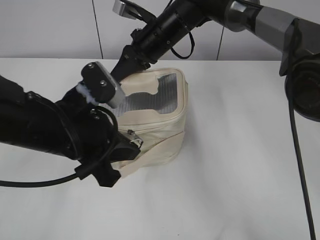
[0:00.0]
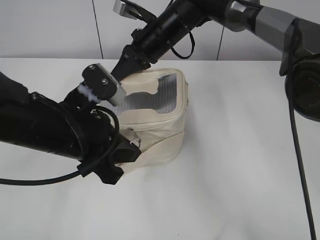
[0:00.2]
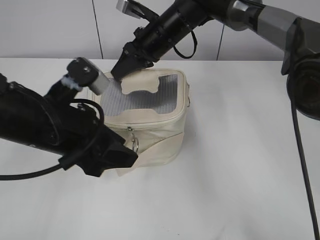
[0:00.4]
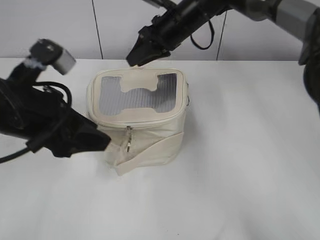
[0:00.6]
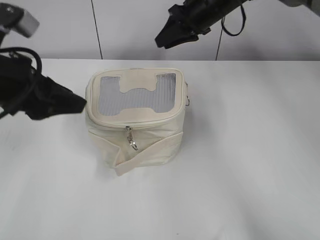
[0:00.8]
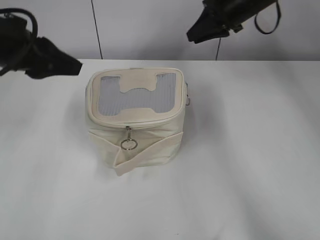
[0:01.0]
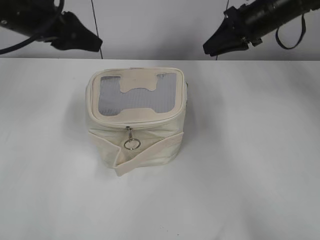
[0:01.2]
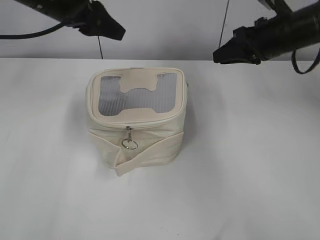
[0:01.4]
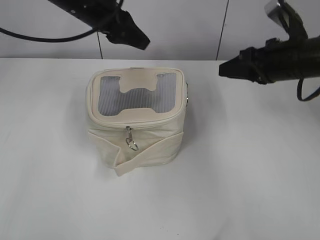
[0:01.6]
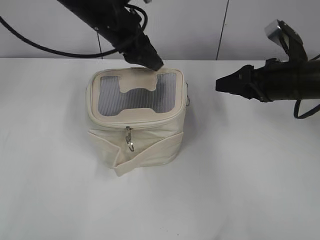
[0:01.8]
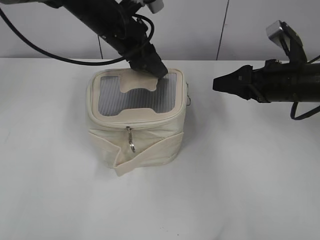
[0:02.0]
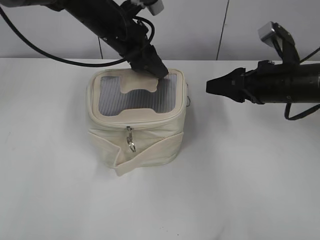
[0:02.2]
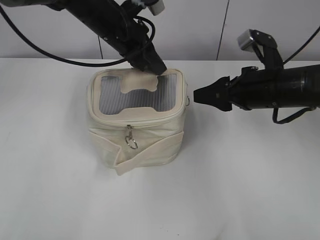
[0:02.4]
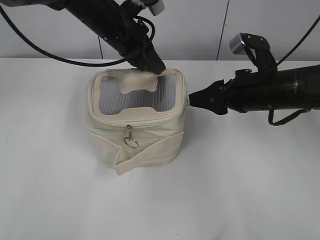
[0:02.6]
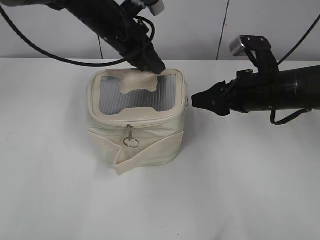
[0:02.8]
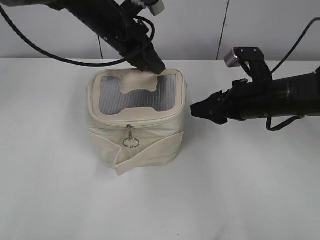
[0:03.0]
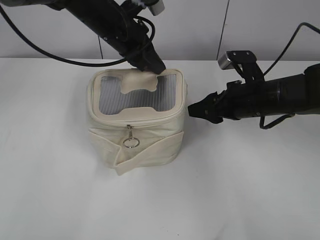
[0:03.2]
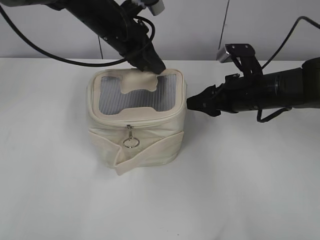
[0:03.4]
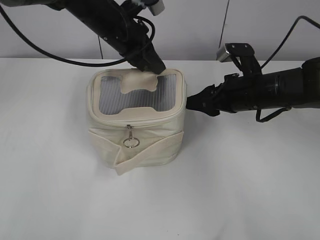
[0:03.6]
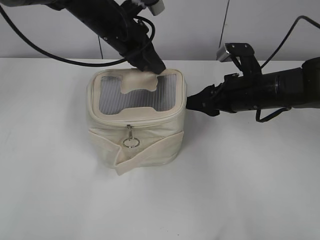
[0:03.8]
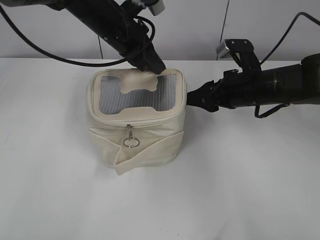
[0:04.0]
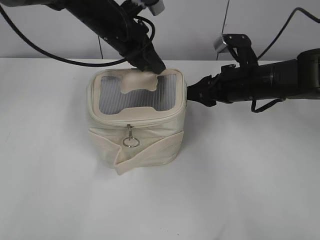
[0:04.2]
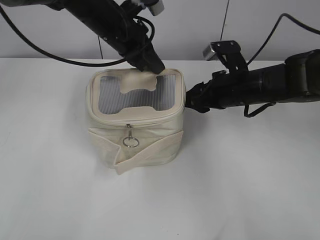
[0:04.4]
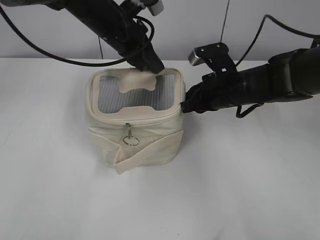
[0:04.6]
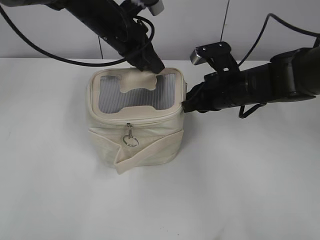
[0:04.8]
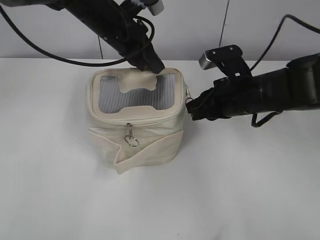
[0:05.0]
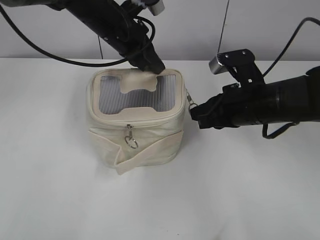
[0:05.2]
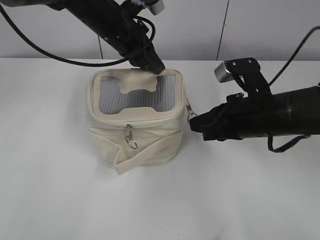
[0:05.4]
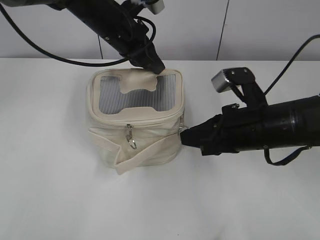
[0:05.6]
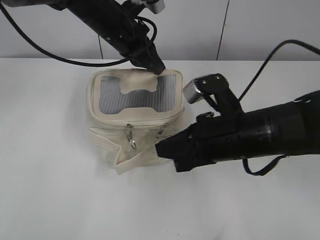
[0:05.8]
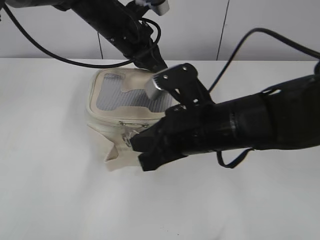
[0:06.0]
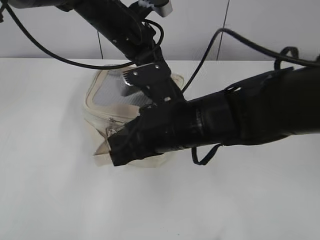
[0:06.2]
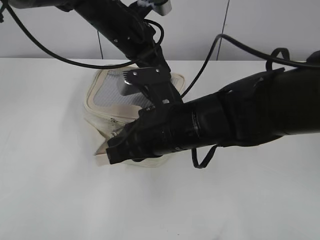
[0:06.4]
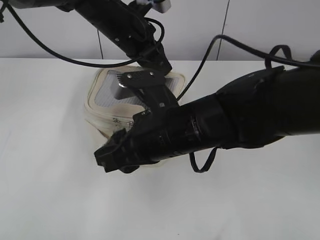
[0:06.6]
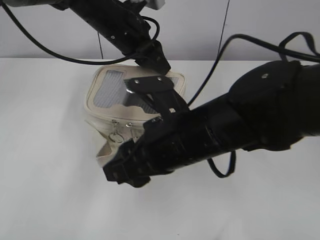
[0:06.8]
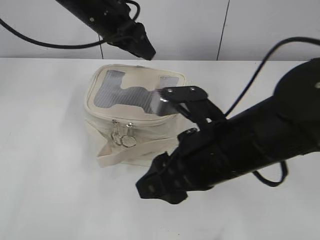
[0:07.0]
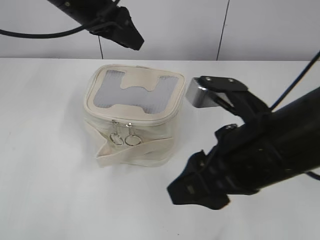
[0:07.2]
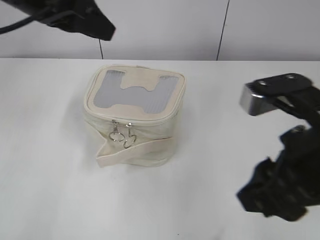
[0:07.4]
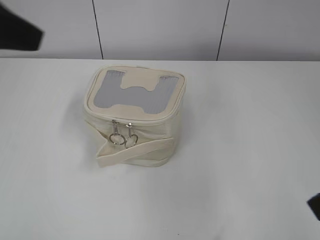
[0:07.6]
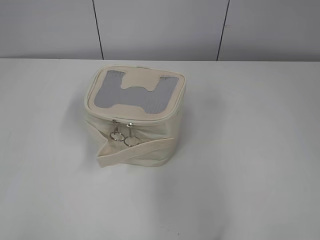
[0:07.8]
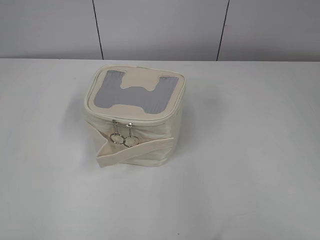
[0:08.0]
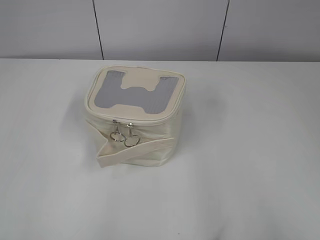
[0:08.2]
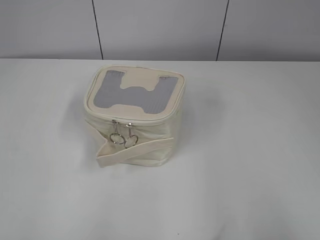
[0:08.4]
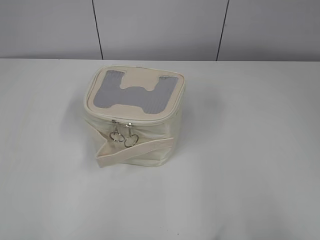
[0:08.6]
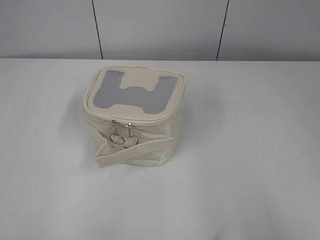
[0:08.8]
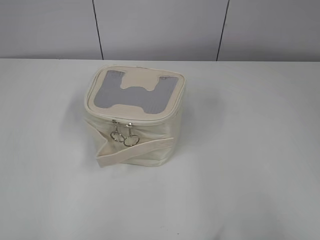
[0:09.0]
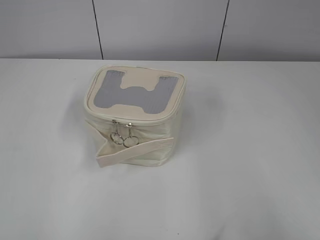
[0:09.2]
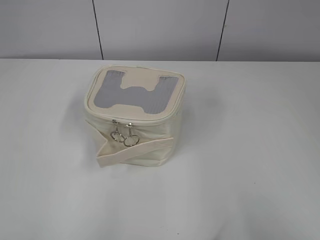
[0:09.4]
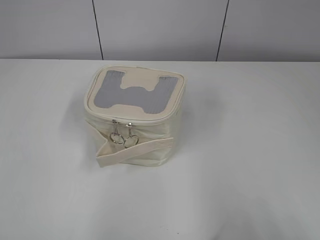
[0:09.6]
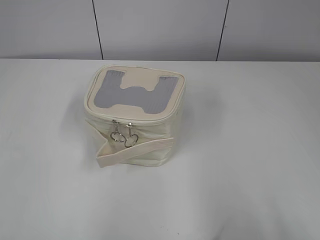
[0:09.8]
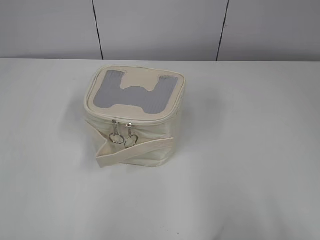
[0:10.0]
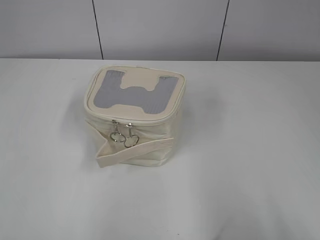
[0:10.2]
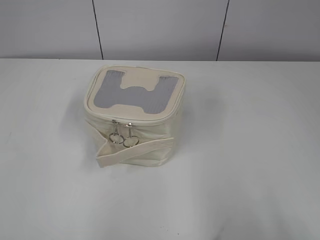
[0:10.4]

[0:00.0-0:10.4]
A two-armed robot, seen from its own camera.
Step, 0:00.6 to 0:06.4: Zip up the bag with your right hand.
Step, 0:06.6 to 0:06.8: Hold the bag with your left hand.
0:00.0 to 0:01.4: The right gripper travels to the right by roughly 20 cm, and opens. Meanwhile the left gripper moves forward and upward, approximately 20 cm, and opens up.
0:01.4 to 0:03.0: The left gripper shifts roughly 10 cm to the right and downward, and closes its fingers. Meanwhile the right gripper moves backward and downward, about 10 cm, and opens.
0:03.0 to 0:04.4: There are only small adjustments of the grippers.
0:04.4 to 0:06.0: The right gripper heads backward and to the left, covering about 15 cm, and closes up.
0:06.0 to 0:07.4: The left gripper travels backward, upward and to the left by roughly 20 cm, and opens up. The right gripper shifts some 15 cm upward, backward and to the right, and opens up.
0:07.4 to 0:09.0: The left gripper moves backward and to the left, about 35 cm; the right gripper travels to the right and backward by approximately 20 cm.

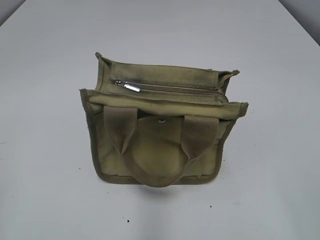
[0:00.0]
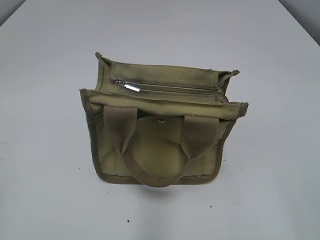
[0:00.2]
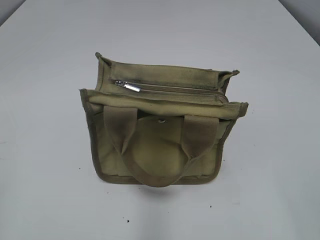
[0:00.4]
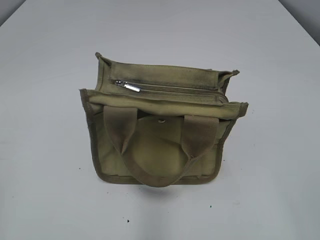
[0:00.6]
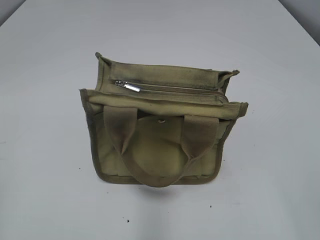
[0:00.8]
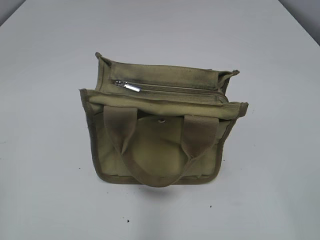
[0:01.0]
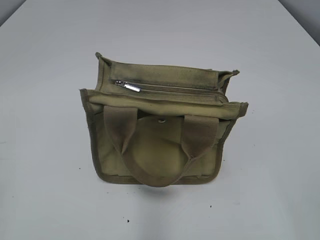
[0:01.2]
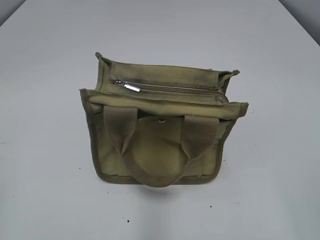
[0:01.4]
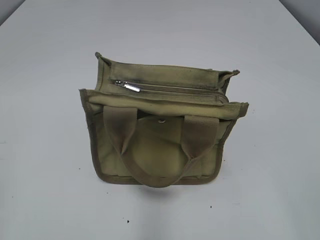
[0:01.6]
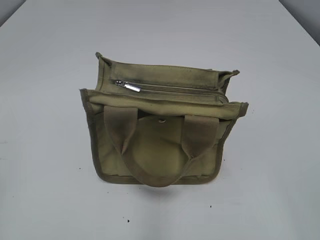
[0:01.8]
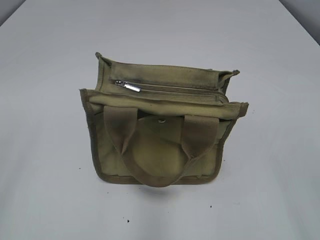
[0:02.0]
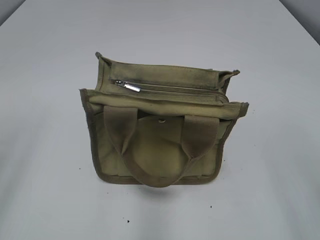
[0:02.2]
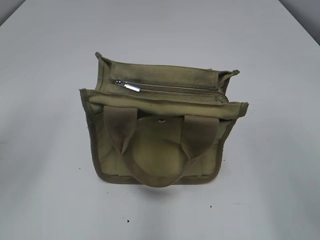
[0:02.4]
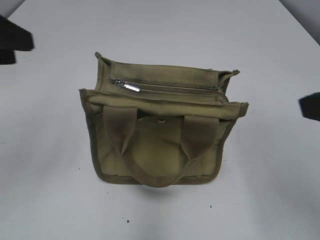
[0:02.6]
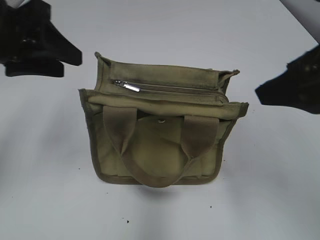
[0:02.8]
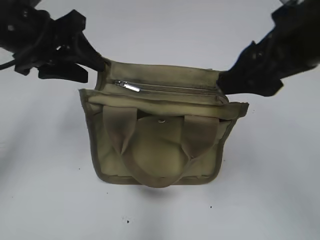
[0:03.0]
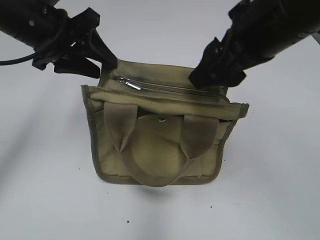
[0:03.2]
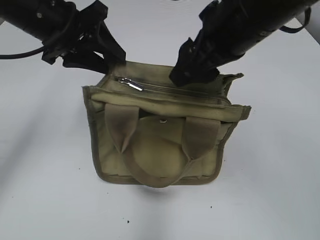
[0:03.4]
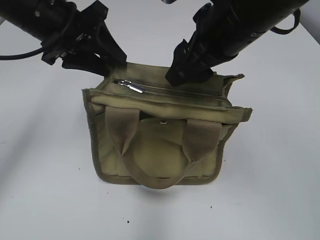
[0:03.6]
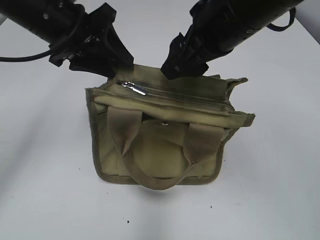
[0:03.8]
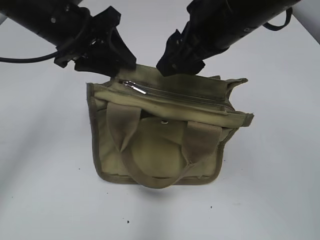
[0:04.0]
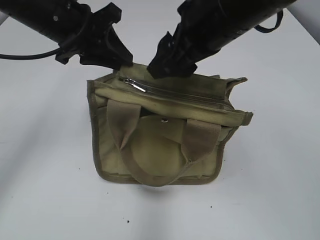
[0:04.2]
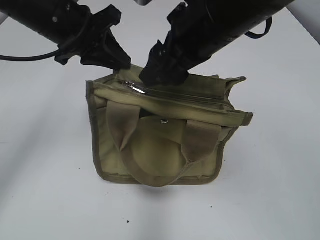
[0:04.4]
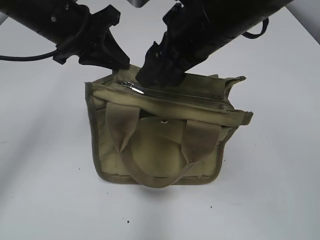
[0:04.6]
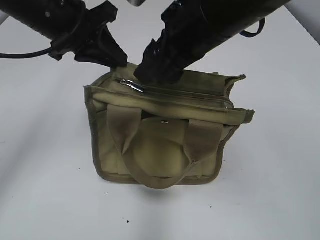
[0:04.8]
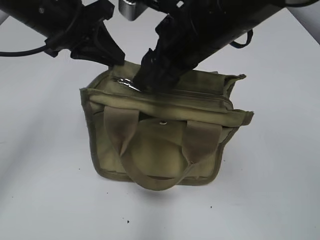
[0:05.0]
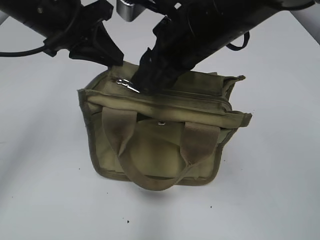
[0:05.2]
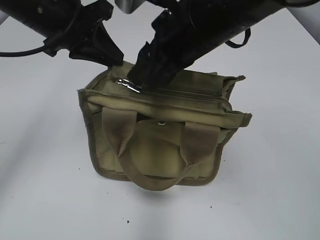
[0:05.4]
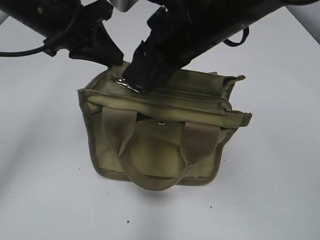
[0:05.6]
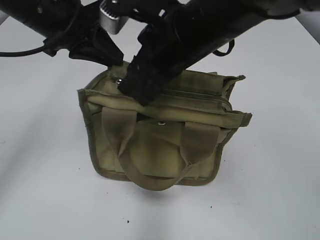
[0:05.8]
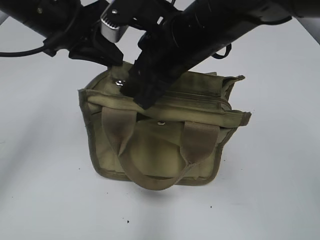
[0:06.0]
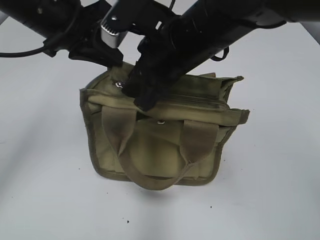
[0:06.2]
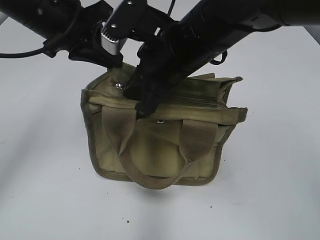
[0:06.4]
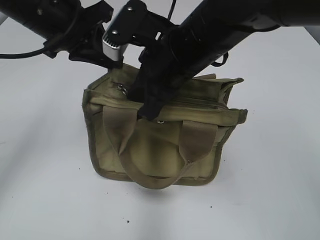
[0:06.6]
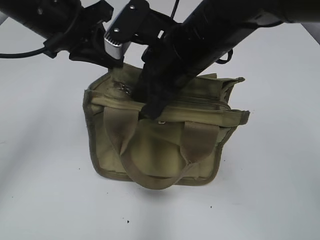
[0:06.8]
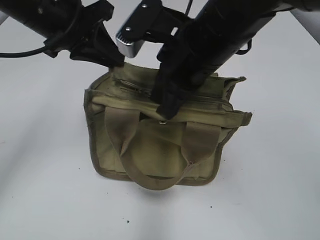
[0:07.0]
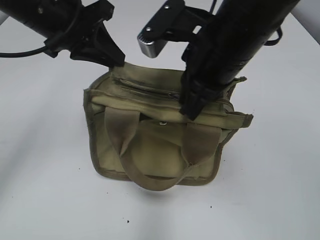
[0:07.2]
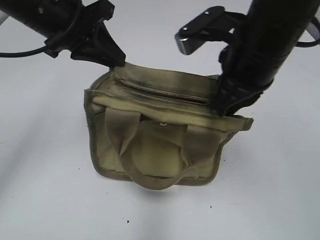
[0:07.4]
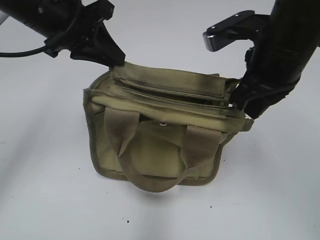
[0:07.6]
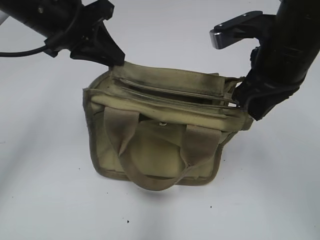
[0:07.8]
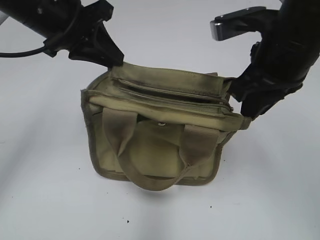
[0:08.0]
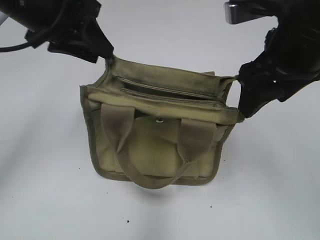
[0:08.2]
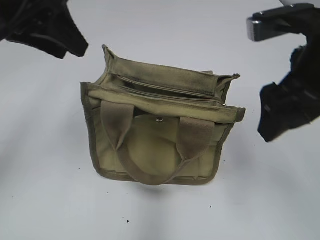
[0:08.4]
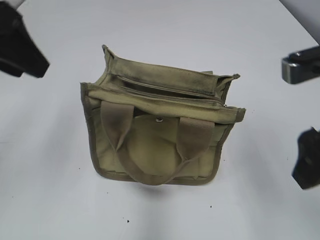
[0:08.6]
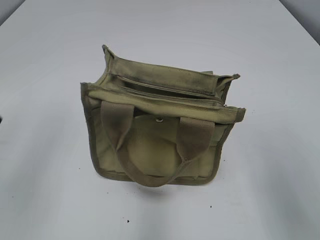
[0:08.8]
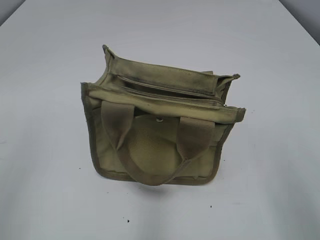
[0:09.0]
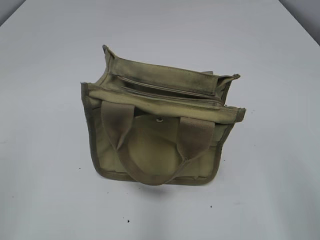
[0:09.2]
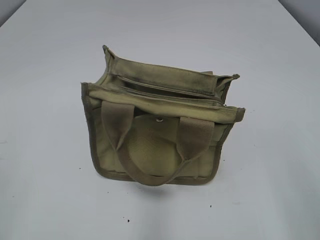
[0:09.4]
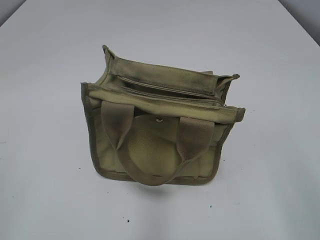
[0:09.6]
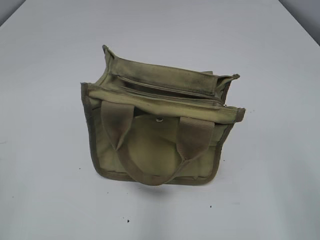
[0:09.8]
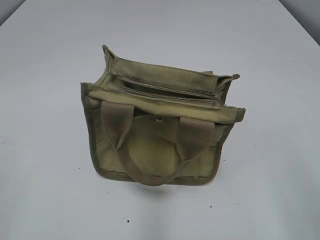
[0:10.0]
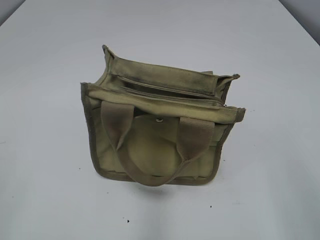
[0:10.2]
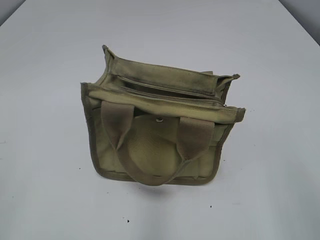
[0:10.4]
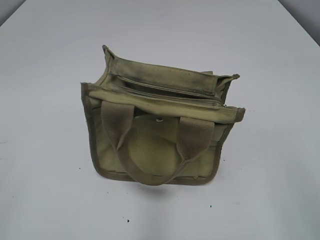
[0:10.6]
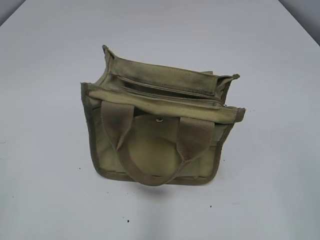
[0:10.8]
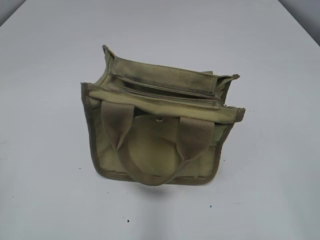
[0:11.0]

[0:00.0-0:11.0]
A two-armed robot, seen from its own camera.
Step, 0:00.0 to 0:07.8: Pull open the zipper with your right hand.
Step, 0:08.0 to 0:08.2: Hold the bag with your left hand.
0:01.6 to 0:03.2: The right gripper moves forward and to the left, about 30 cm; the left gripper is displaced forward and to the right by roughly 35 cm.
0:03.2 to 0:04.8: The right gripper goes approximately 5 cm to the left; the left gripper closes.
0:04.8 to 0:06.2: The right gripper closes up.
0:06.2 to 0:07.8: The right gripper goes some 10 cm to the right, and closes.
0:07.8 to 0:09.4: The left gripper shifts about 35 cm backward and to the left, and opens its fingers; the right gripper goes roughly 25 cm backward and to the right, and opens up.

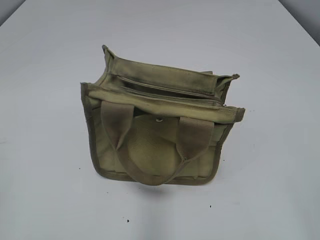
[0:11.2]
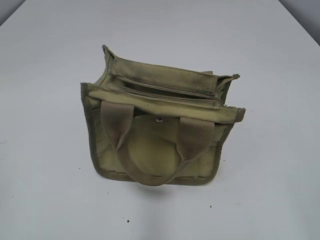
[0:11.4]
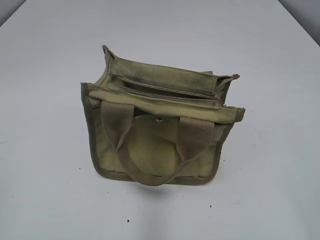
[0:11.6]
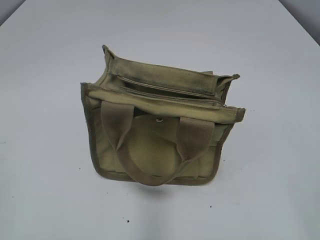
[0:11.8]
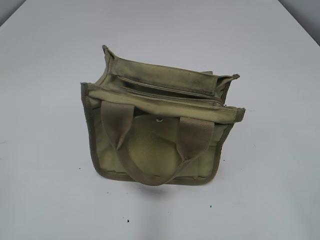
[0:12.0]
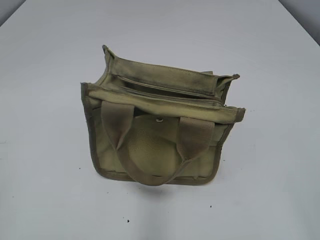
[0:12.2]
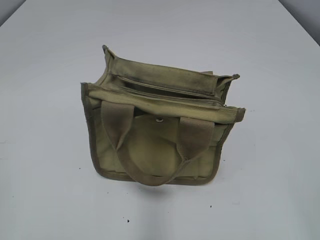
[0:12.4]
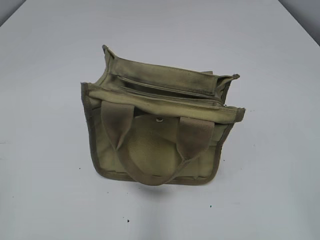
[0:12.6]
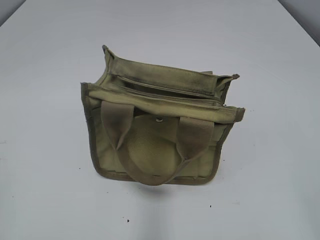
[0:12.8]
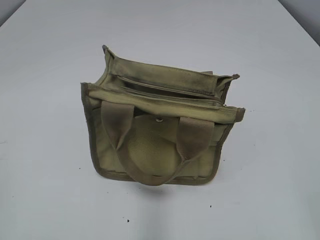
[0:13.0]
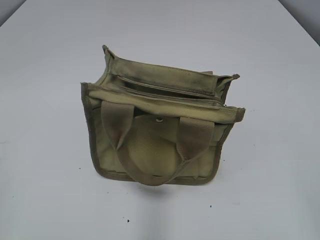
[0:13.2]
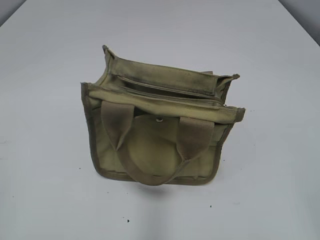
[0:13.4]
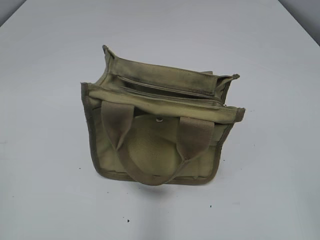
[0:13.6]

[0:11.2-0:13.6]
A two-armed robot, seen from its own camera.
0:11.2 to 0:12.4: Both grippers stay put.
